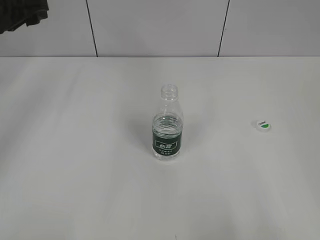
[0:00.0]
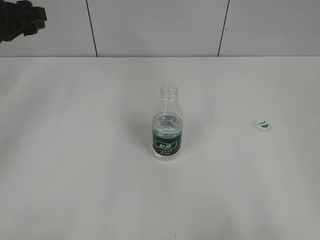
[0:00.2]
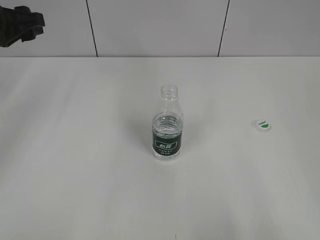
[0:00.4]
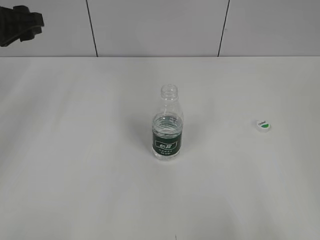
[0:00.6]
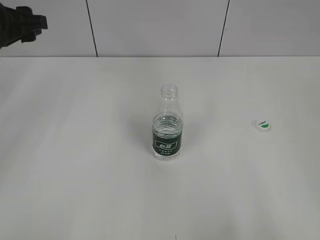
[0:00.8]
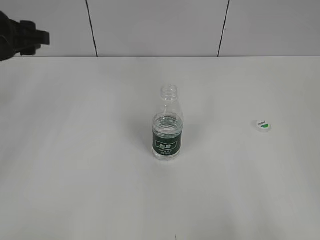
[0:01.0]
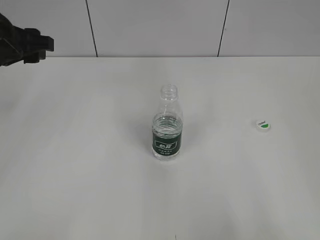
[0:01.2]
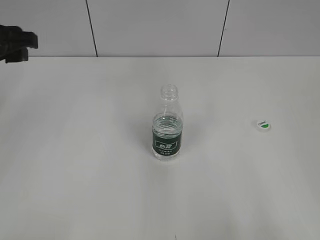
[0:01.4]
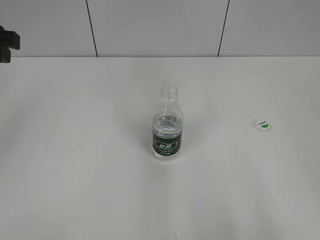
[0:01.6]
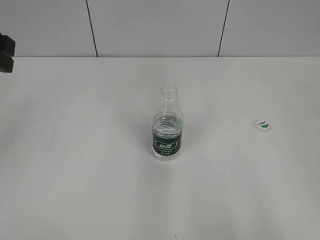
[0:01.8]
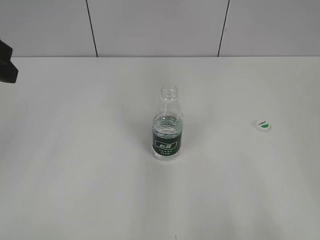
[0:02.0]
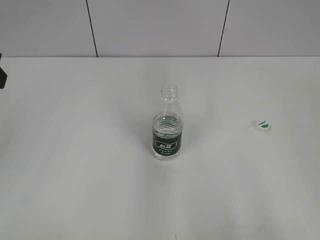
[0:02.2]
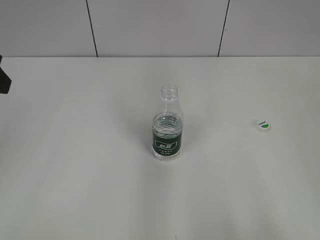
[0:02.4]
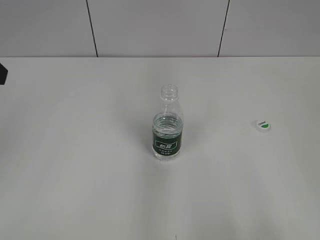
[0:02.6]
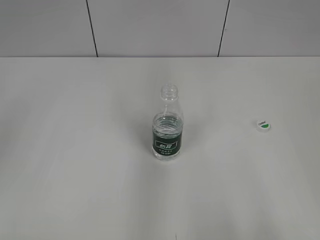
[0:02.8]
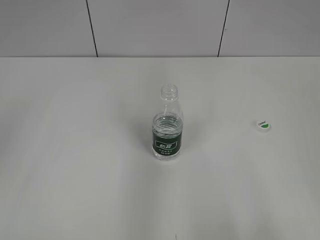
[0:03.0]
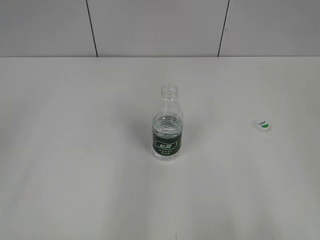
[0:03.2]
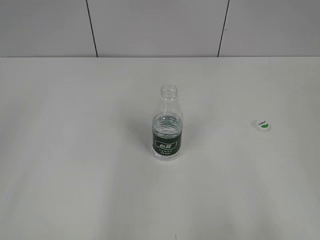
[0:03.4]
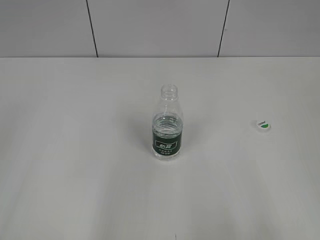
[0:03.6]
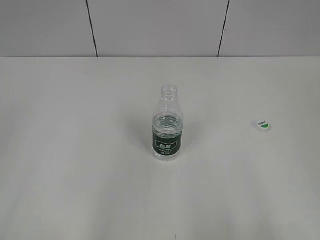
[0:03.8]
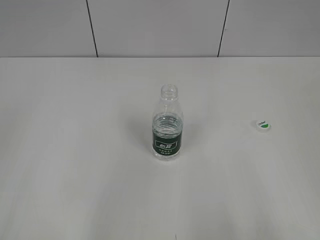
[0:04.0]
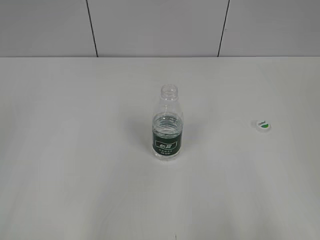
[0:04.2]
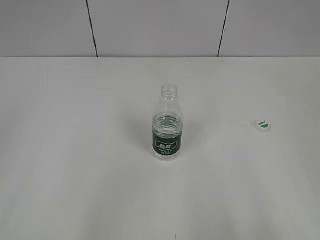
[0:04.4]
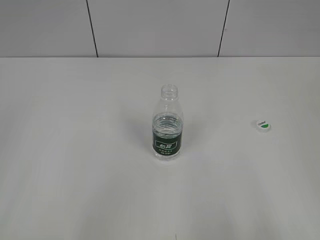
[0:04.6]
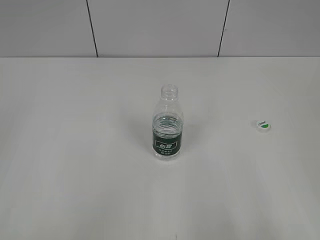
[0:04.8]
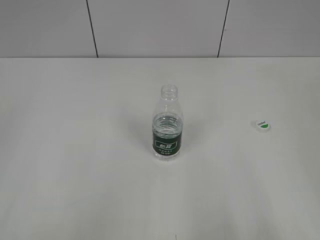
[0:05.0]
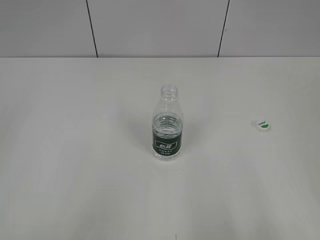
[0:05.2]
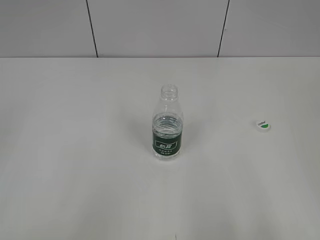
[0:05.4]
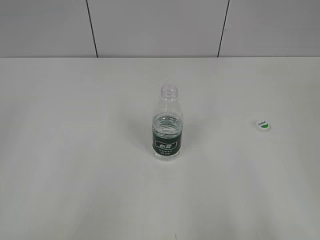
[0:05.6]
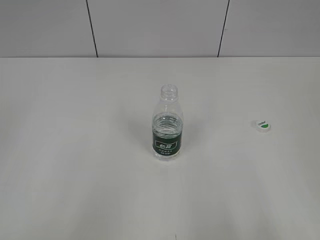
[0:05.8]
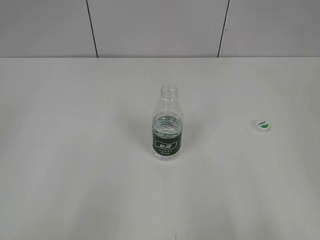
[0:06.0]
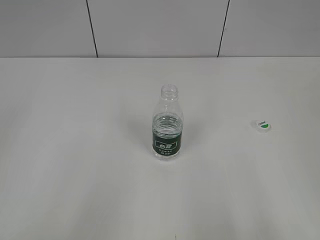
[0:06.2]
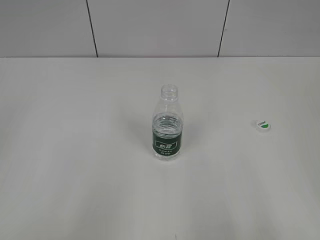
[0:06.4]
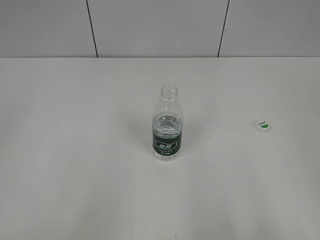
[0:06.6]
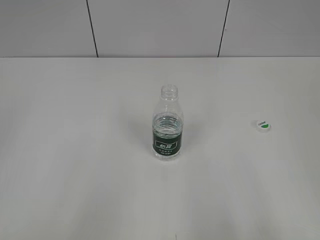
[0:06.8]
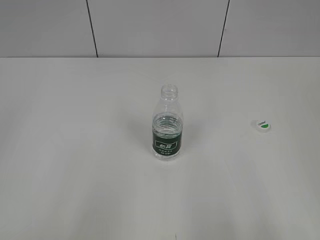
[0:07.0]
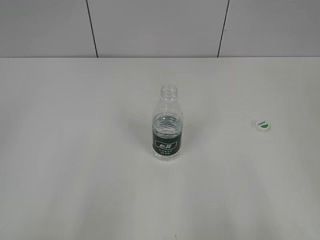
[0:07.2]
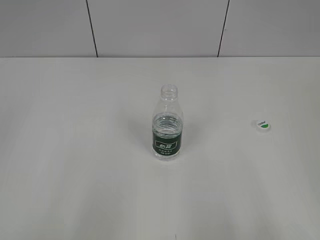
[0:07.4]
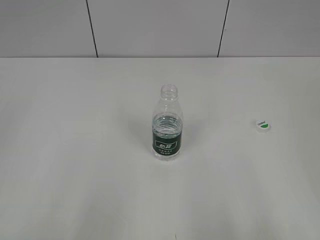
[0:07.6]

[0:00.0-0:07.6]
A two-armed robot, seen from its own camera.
0:00.0 to 0:01.6: The left gripper moves backward, approximately 10 cm.
0:01.6 to 0:03.0: The left gripper travels backward by about 10 cm.
0:06.0 to 0:07.6: The two grippers keep their place.

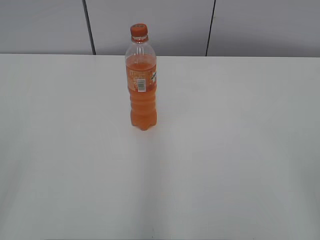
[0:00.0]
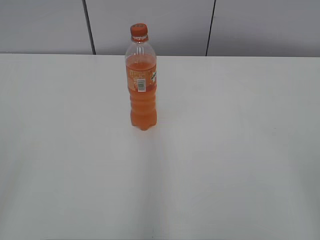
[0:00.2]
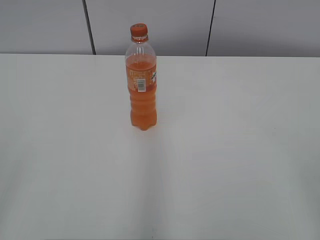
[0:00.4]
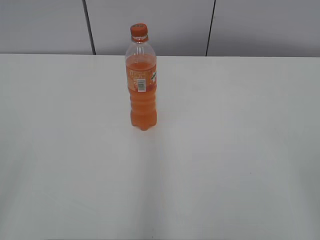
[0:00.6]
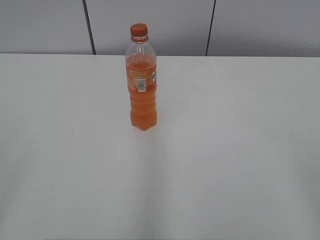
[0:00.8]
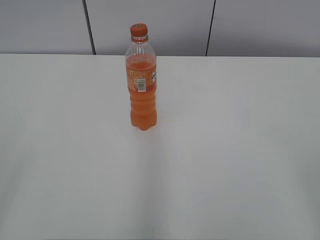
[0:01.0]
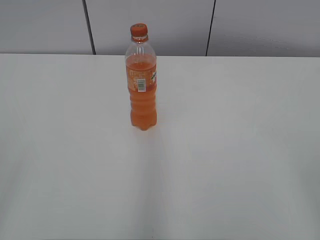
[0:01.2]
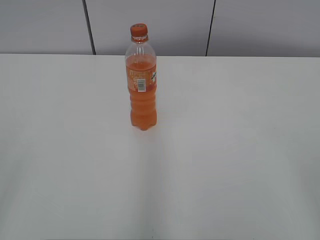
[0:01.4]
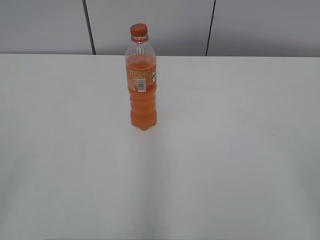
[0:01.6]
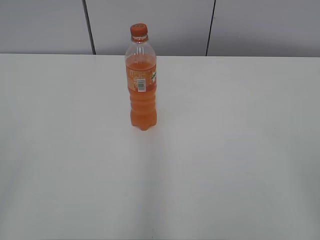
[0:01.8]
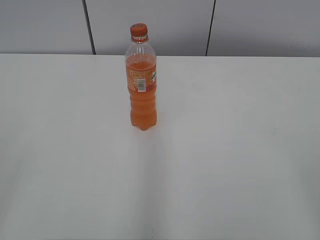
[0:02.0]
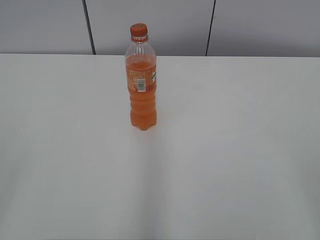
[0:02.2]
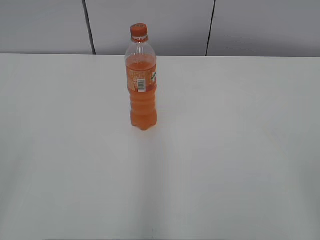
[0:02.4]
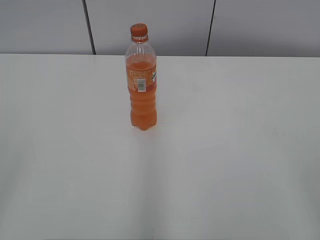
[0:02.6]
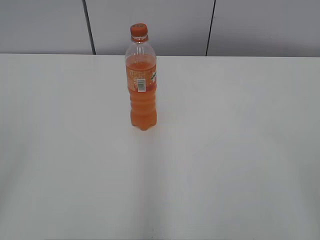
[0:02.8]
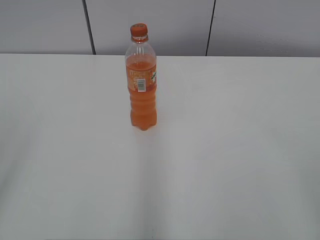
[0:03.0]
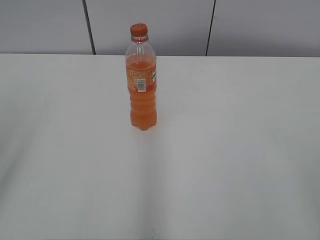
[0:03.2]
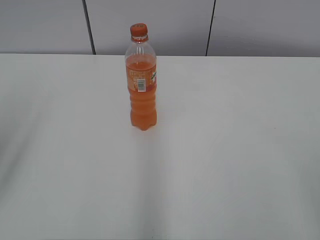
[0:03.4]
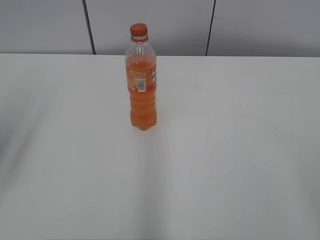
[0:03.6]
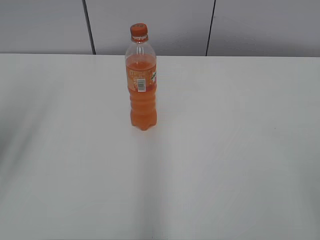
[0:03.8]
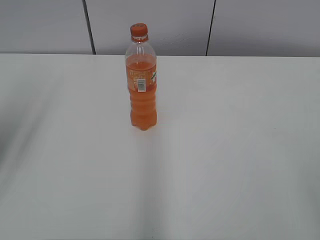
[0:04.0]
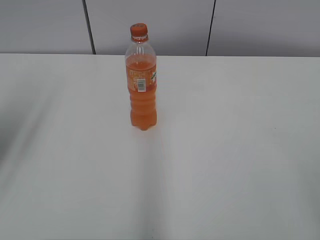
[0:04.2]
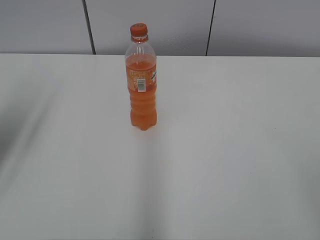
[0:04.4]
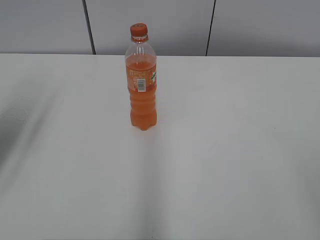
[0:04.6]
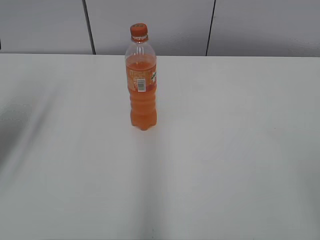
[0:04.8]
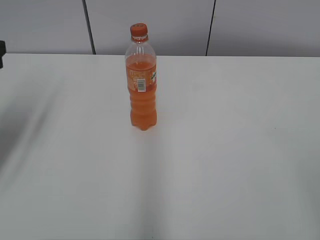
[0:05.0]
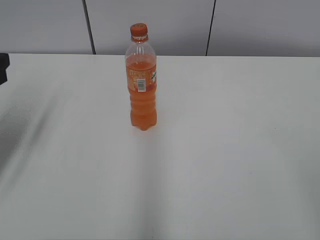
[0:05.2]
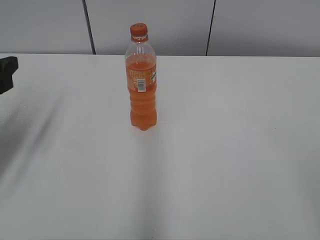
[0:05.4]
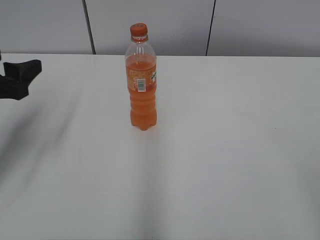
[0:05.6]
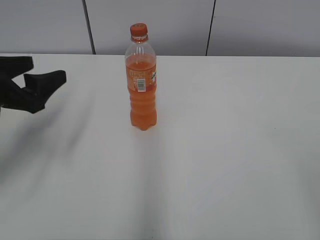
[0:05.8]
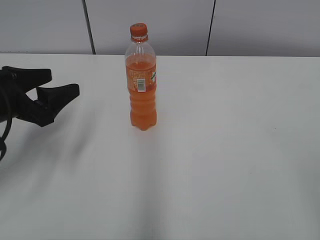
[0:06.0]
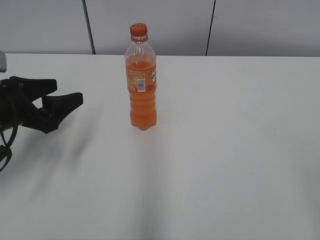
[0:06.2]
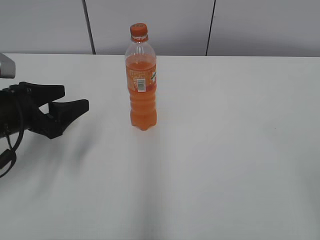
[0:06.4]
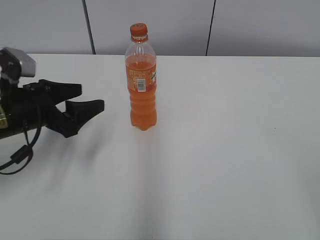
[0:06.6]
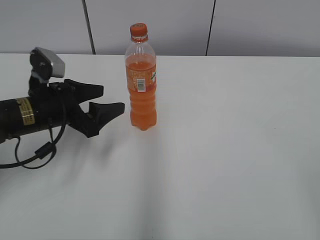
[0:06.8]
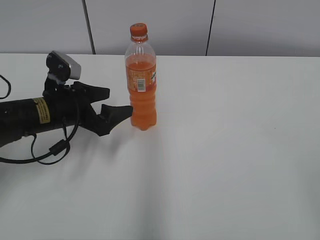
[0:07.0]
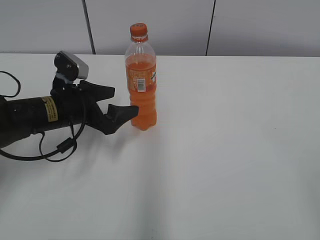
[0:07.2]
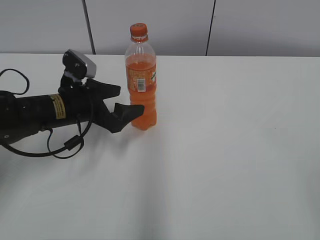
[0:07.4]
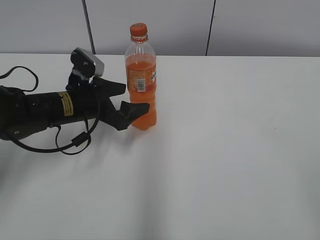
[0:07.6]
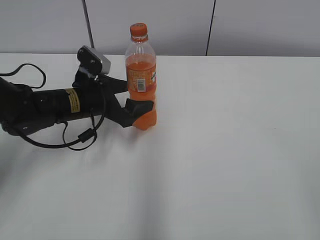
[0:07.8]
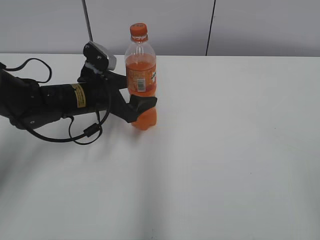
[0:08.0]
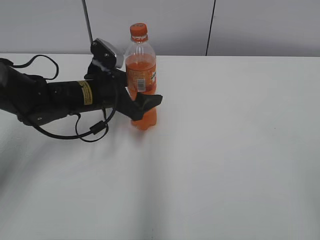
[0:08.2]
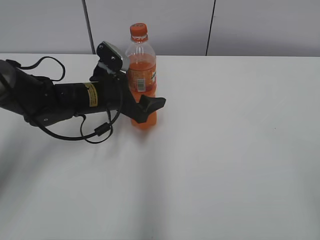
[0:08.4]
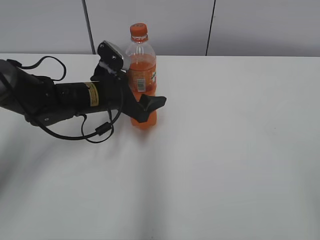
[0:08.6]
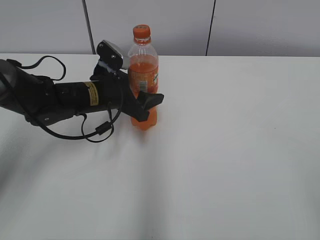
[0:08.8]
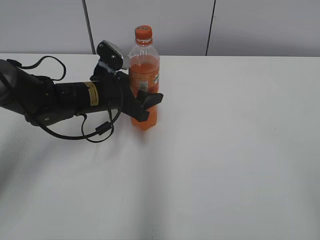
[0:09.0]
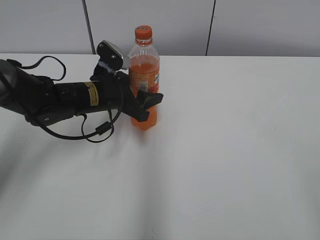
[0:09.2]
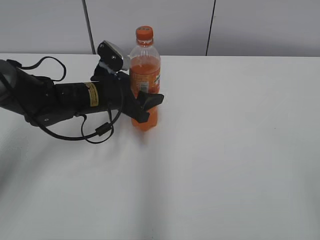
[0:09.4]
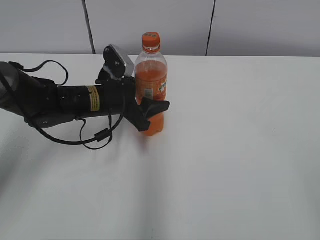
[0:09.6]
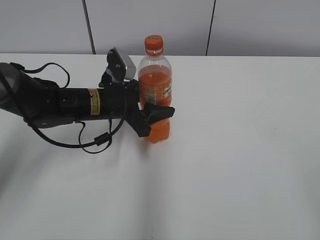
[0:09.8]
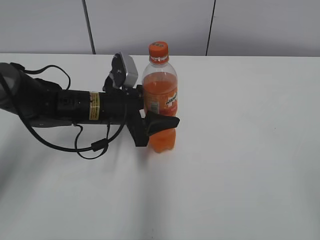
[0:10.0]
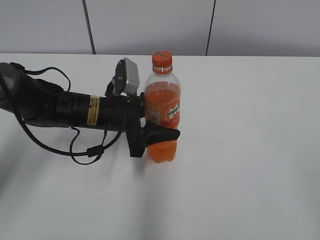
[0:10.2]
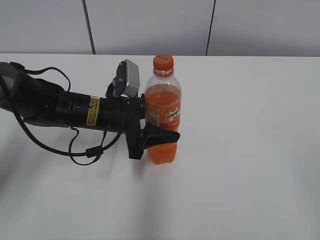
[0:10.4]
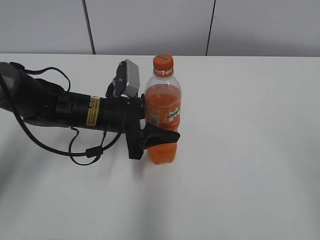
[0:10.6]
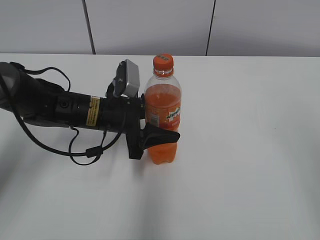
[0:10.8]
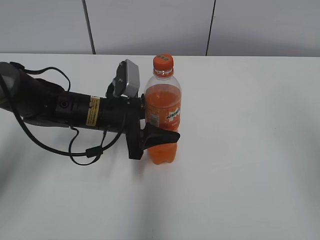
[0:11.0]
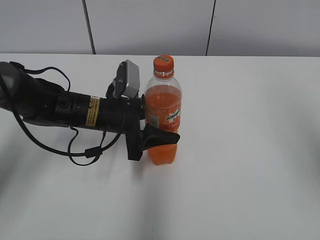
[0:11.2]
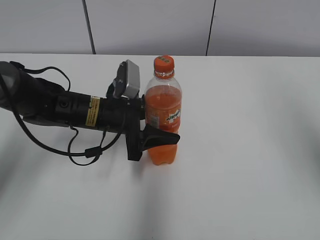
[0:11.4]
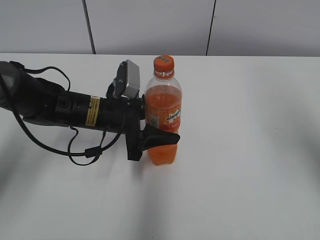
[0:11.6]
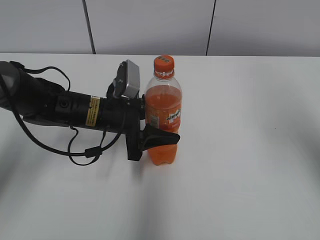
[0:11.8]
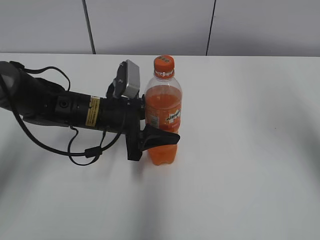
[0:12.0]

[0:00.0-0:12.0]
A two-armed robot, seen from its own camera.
Step, 0:00.0 to 0:09.2: Grab the Mirinda with the left hand.
Step, 0:09.4 to 0:10.8: Move the Mirinda from top to bottom.
0:03.0 to 0:04.4: The left gripper travels forward by roughly 20 cm.
0:04.4 to 0:06.0: The left gripper is displaced downward and to the right by approximately 10 cm.
0:06.0 to 0:07.6: The left gripper heads to the right, forward and downward, covering about 15 cm, and opens.
0:07.6 to 0:09.0: The left gripper closes its fingers.
0:10.4 to 0:12.0: The right gripper shifts some 25 cm forward and upward, and closes.

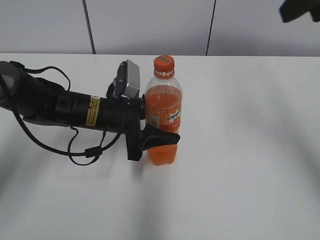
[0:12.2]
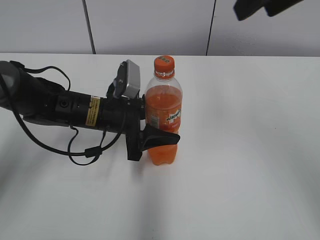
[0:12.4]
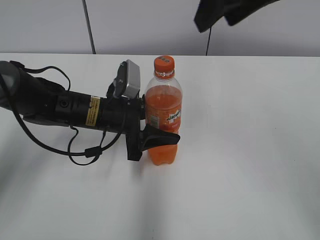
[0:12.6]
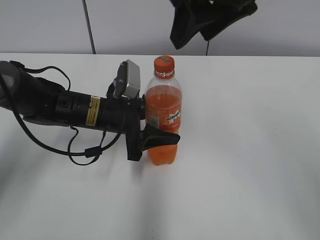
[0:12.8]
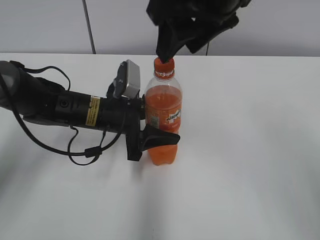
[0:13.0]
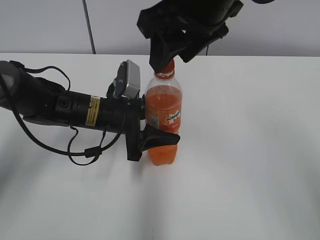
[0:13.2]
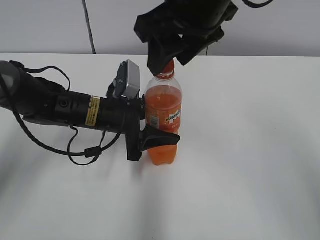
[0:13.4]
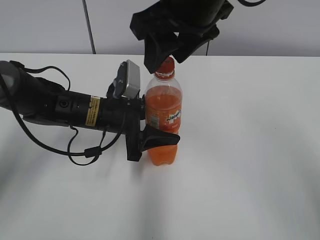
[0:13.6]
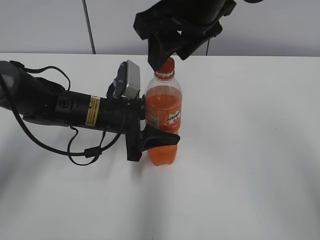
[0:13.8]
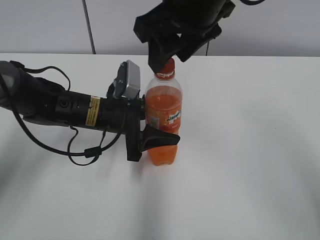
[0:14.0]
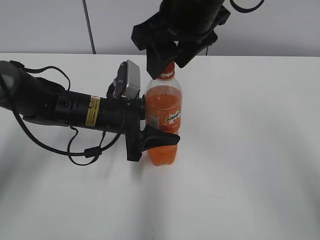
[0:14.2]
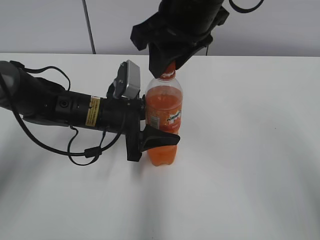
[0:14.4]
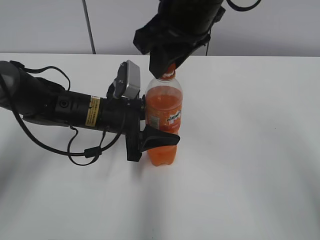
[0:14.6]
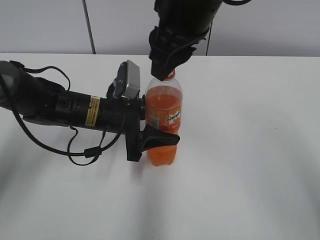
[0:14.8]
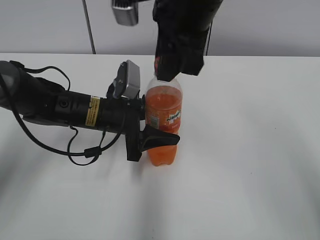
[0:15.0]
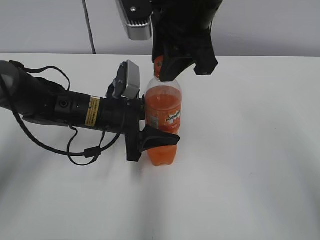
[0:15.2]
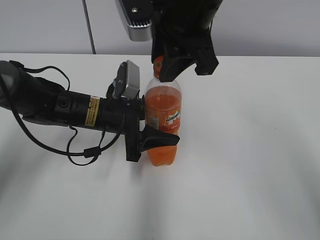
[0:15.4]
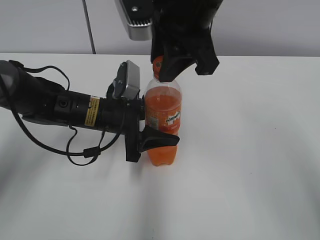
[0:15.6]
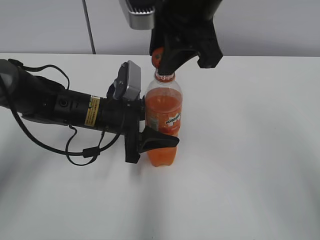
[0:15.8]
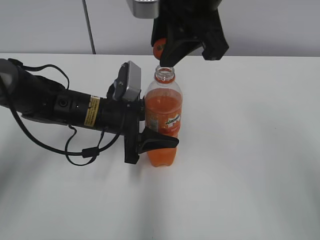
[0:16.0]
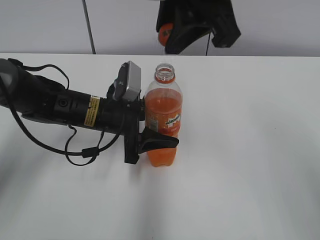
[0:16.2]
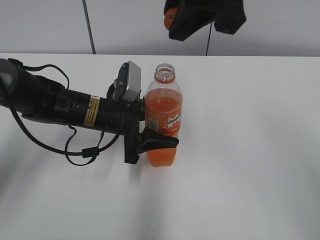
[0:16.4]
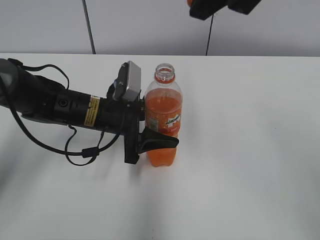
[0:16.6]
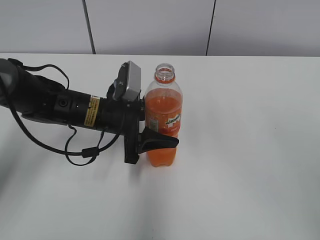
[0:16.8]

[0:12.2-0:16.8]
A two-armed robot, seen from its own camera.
0:12.2 to 0:13.8: The right gripper moves to the left, about 15 cm.
0:13.8 to 0:15.2: The right gripper closes up.
0:15.2 to 0:16.8: The right gripper travels upward and to the right by approximately 10 cm.
